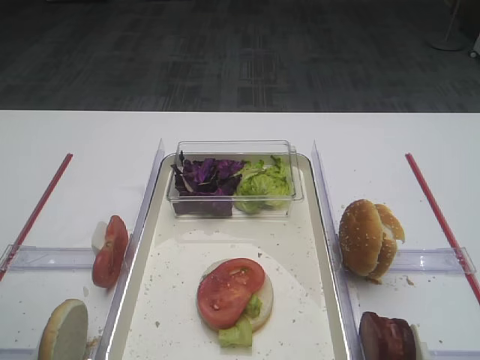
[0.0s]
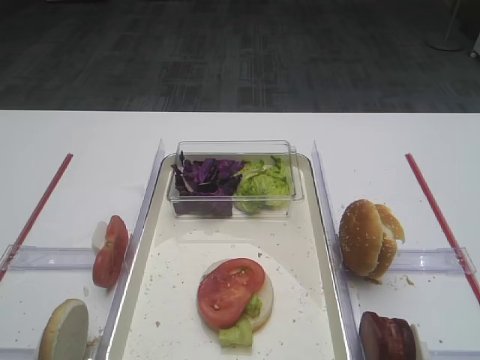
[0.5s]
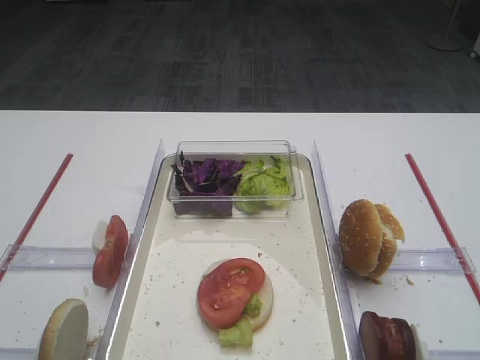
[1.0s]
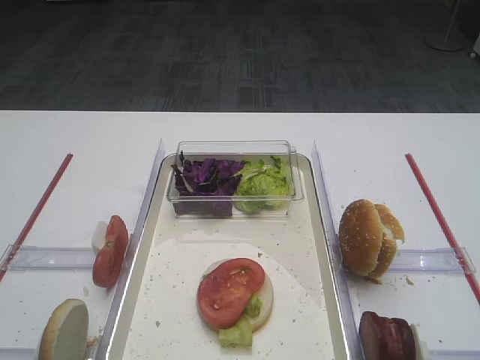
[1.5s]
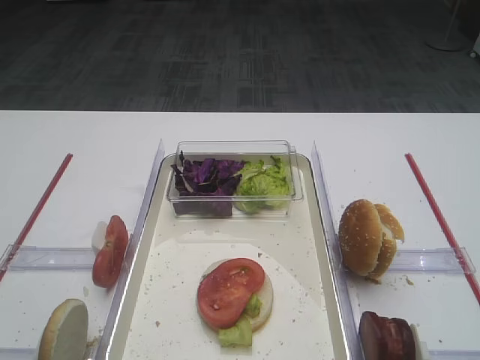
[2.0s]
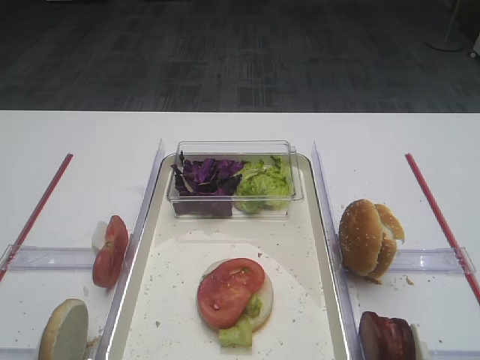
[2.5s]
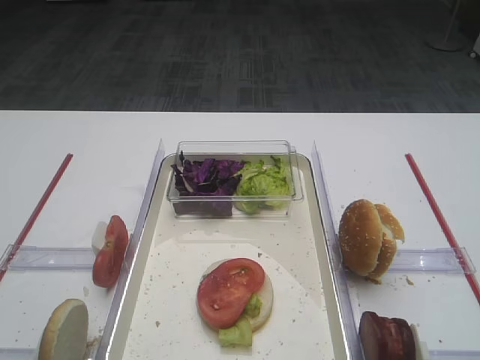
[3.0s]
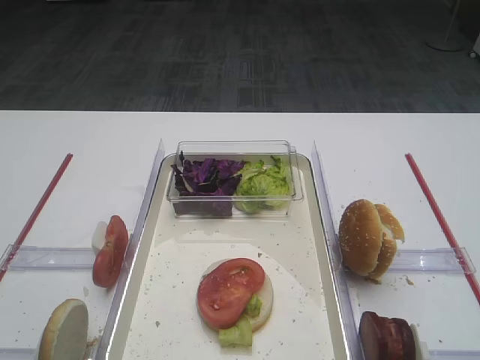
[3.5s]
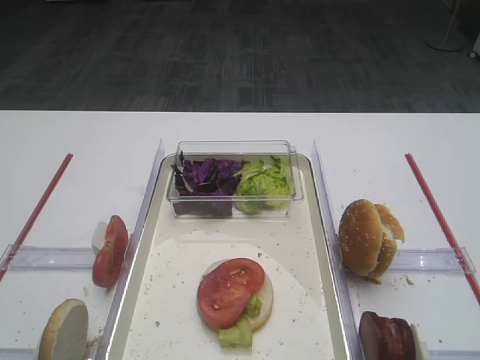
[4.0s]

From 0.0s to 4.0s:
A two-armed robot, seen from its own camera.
From 2.0s to 4.0s: Neither gripper changes place.

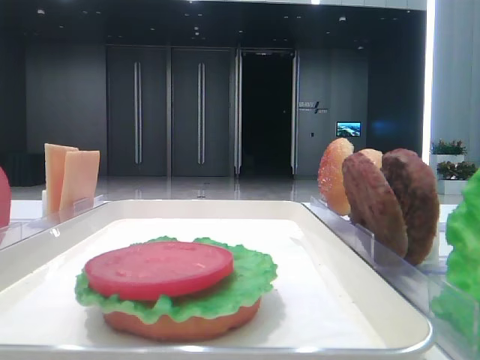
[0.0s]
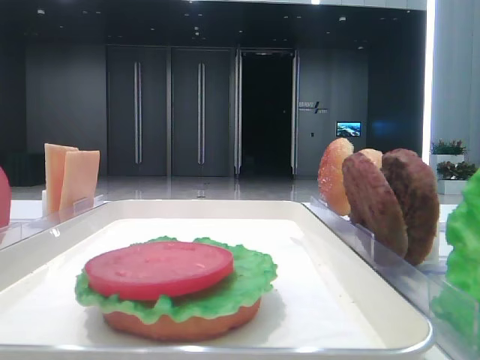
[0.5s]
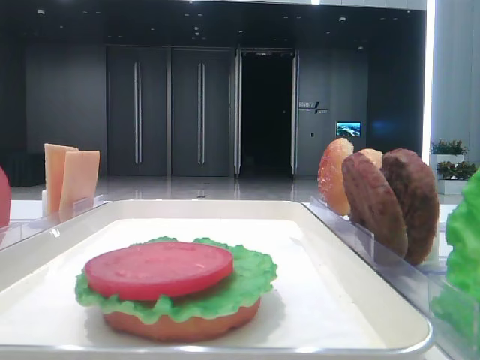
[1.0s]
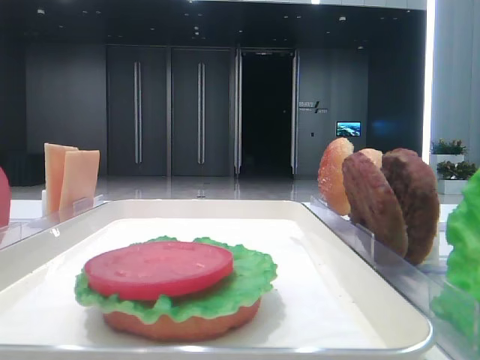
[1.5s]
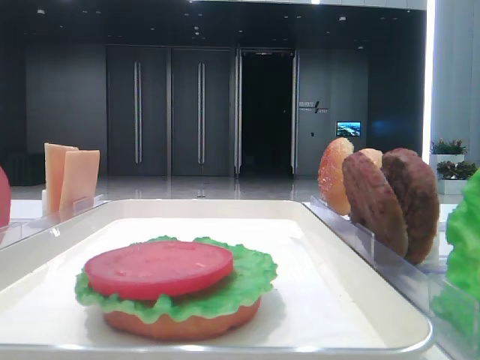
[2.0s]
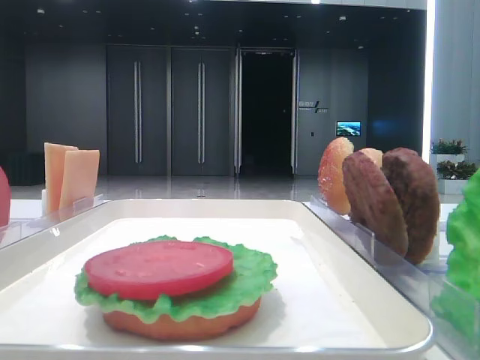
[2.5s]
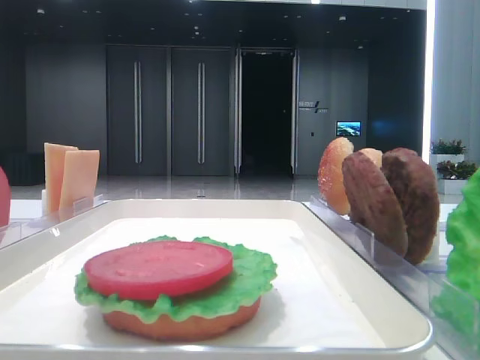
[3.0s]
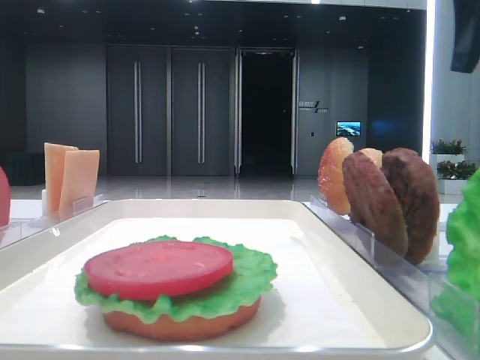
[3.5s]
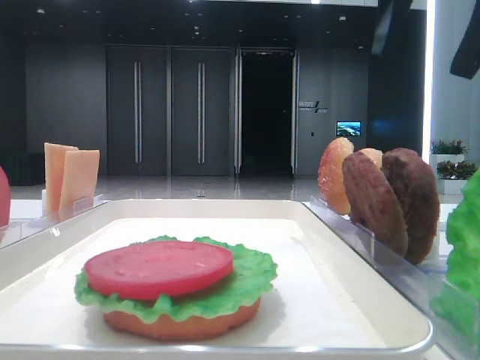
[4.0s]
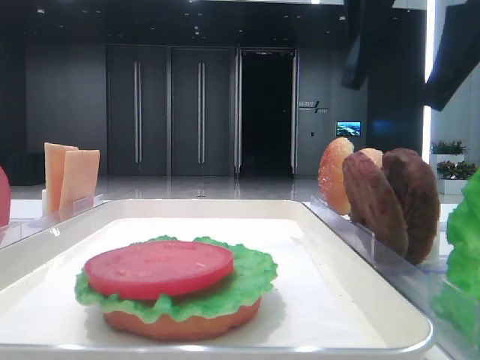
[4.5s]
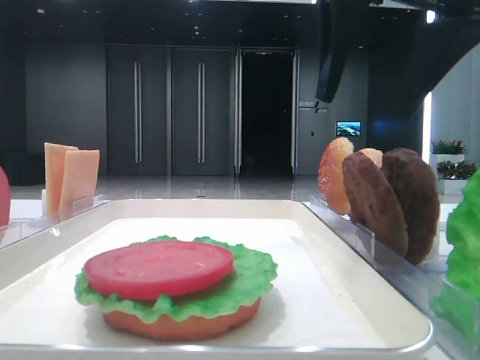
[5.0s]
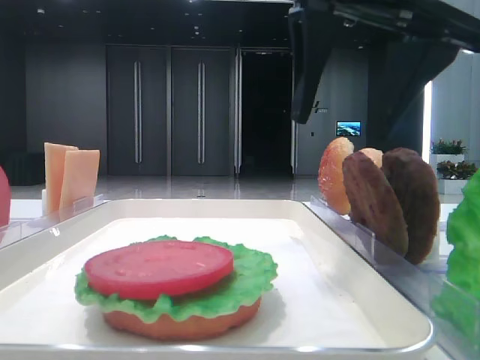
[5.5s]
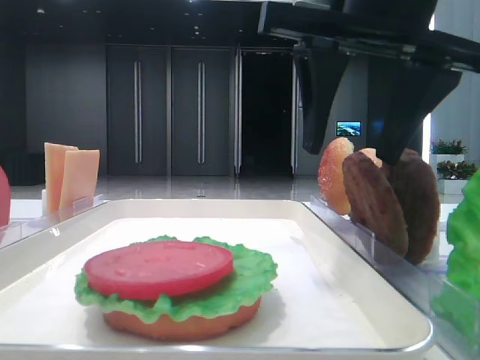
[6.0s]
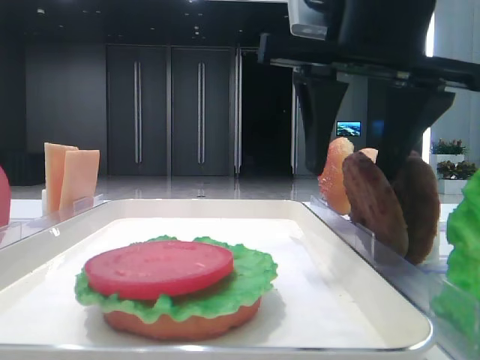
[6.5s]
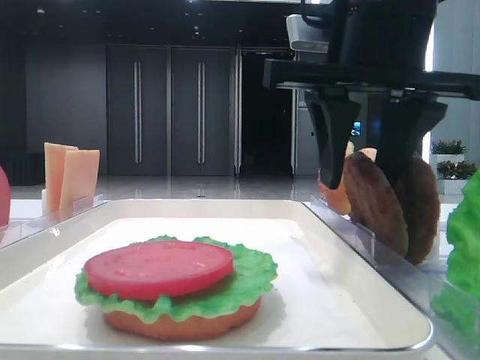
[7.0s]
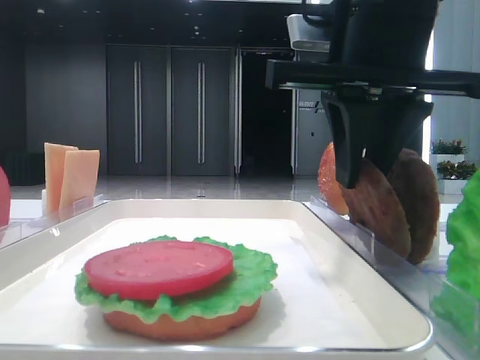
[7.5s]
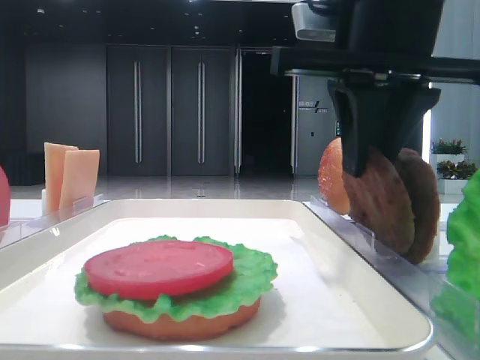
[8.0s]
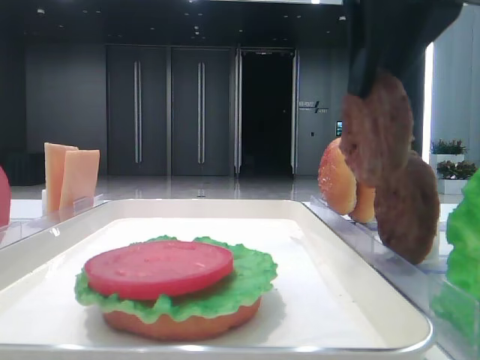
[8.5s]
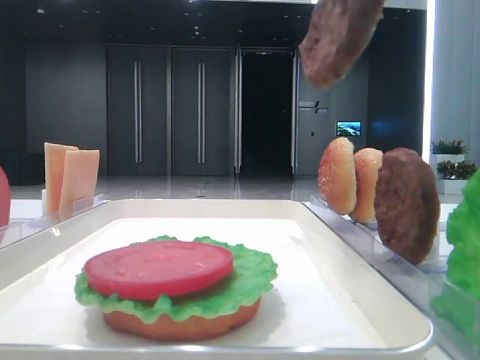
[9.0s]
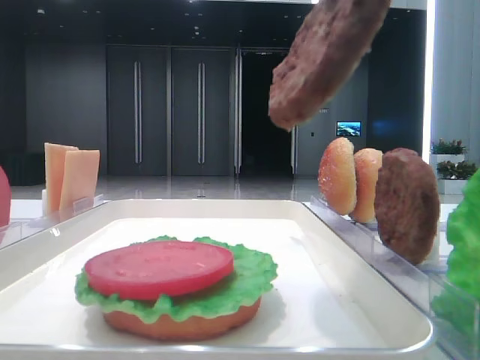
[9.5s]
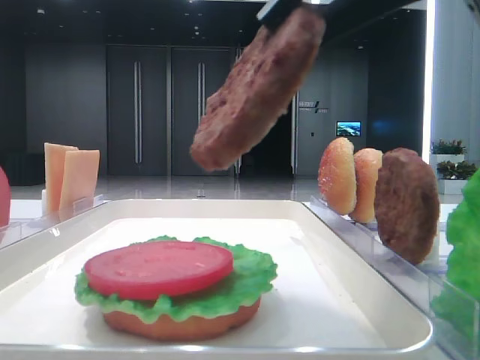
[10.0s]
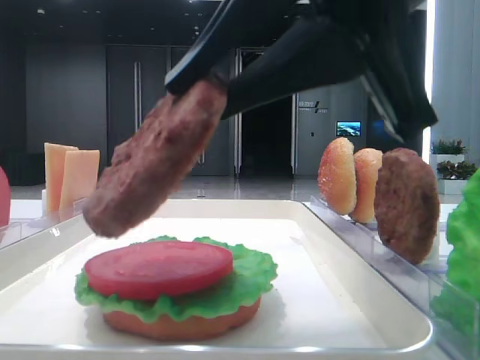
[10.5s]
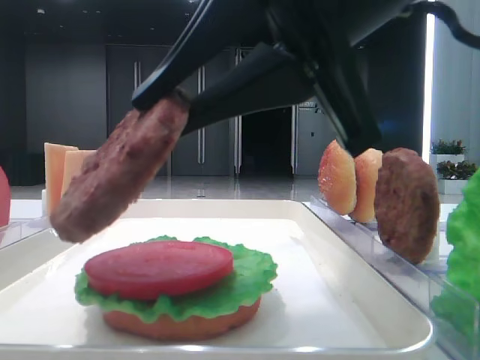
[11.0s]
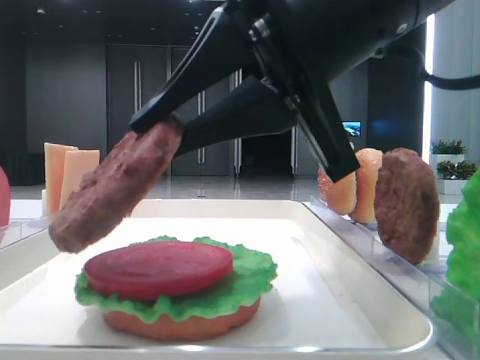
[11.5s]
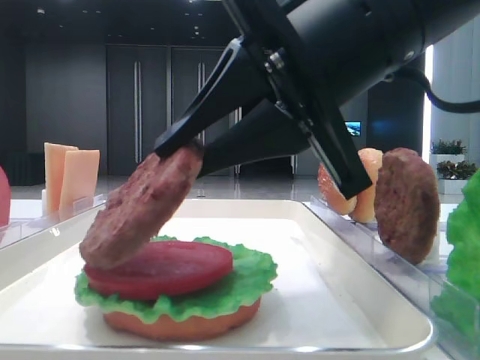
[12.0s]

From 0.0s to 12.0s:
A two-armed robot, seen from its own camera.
Step, from 0.0s to 7.5s: Grab the patty with the right hand.
From 2.0s to 4.0s: The right gripper moves to the left and forward, roughly 15 cm.
From 4.0s to 6.0s: The right gripper shifts approximately 10 cm downward and to the left.
From 6.0s to 8.0s: The right gripper closes up.
From 8.0s to 10.0s: The right gripper travels backward by some 10 cm.
From 10.0s to 12.0s: The right gripper moves forward and downward, roughly 10 cm.

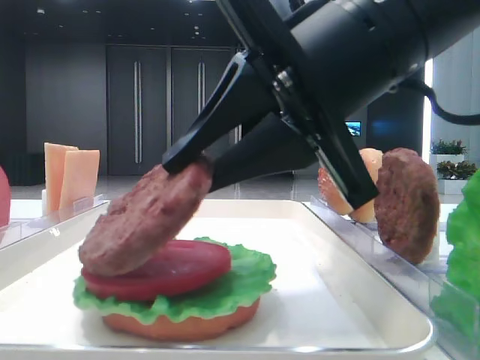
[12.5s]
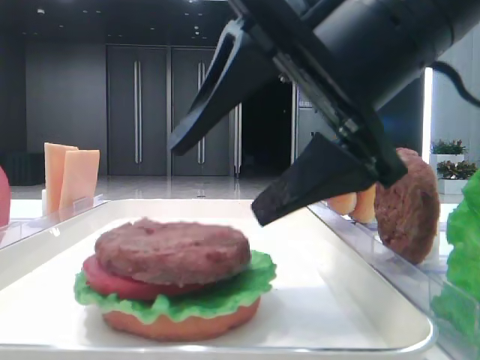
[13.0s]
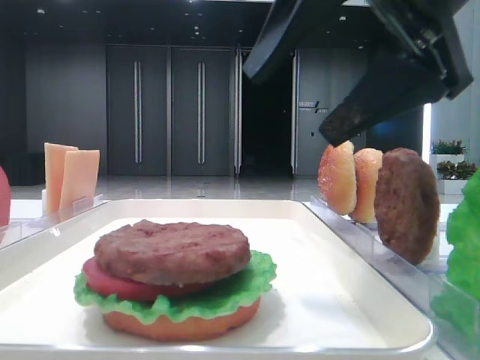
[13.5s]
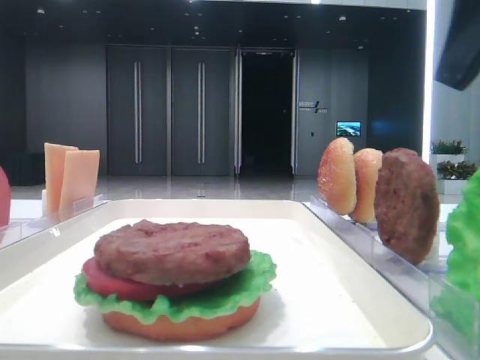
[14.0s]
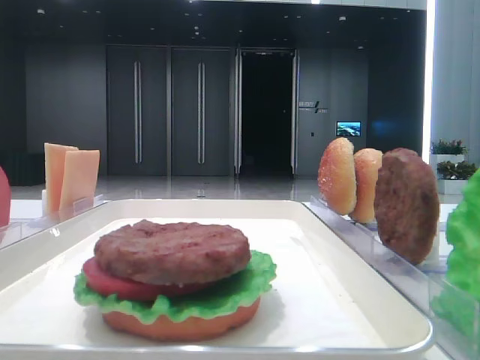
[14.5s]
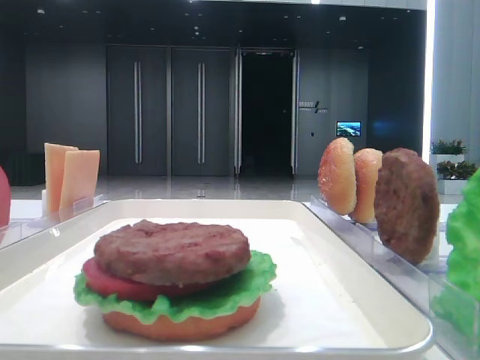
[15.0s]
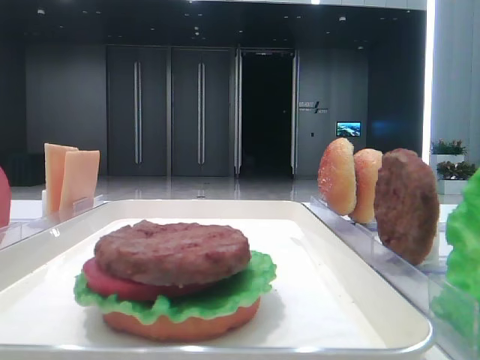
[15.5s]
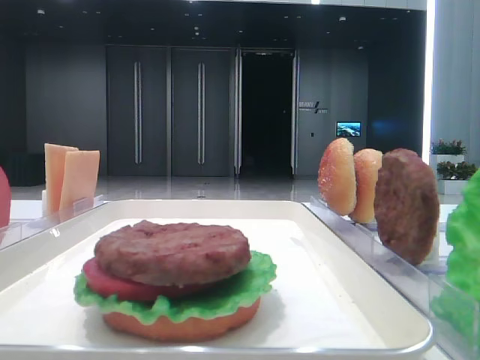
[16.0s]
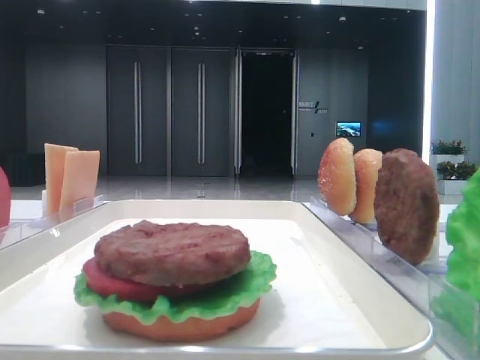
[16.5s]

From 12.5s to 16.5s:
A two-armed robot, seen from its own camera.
From 12.5s to 14.5s: The right gripper shifts roughly 20 cm to the right, and opens up.
